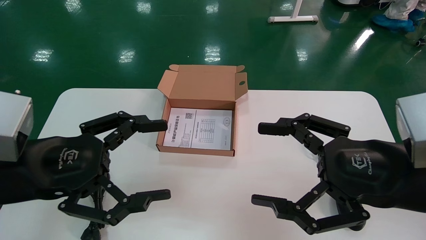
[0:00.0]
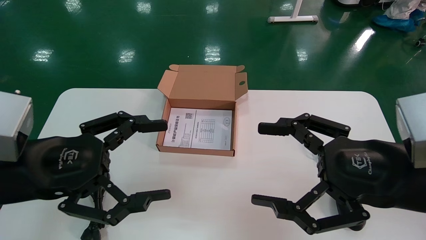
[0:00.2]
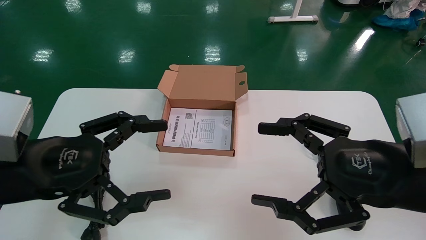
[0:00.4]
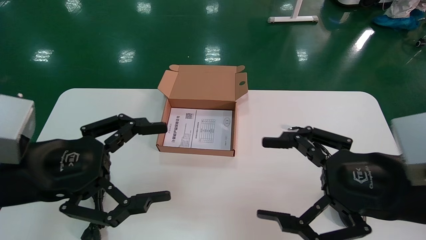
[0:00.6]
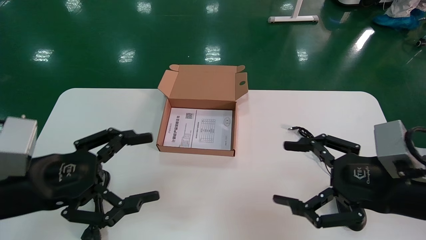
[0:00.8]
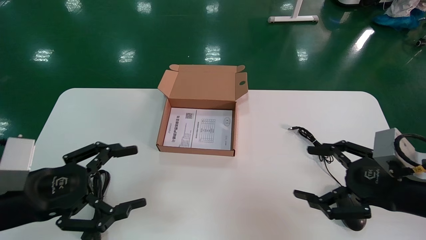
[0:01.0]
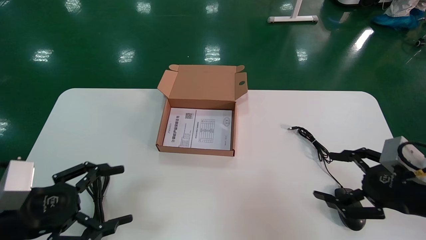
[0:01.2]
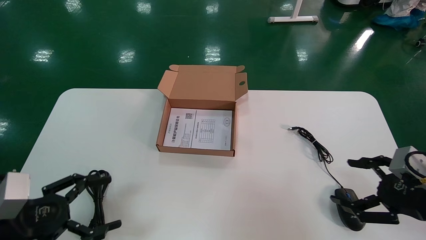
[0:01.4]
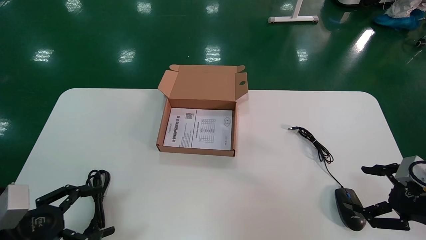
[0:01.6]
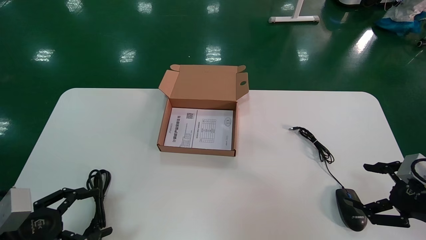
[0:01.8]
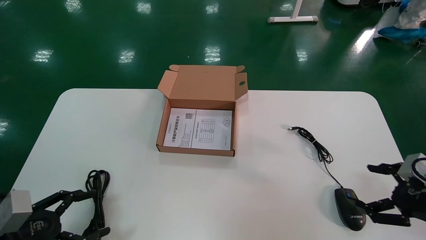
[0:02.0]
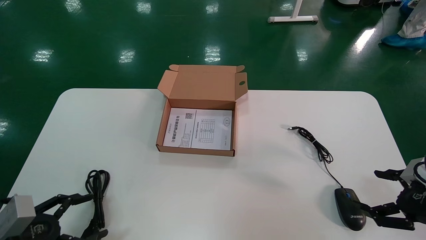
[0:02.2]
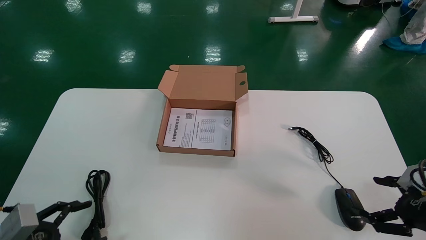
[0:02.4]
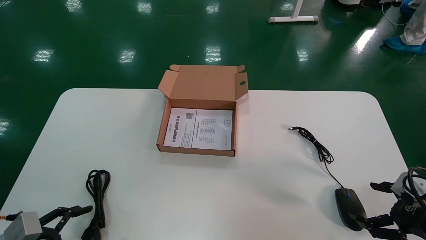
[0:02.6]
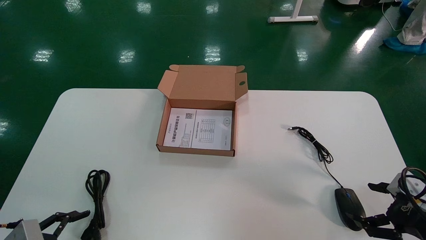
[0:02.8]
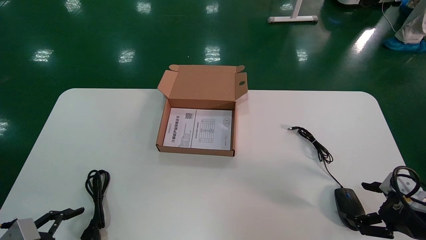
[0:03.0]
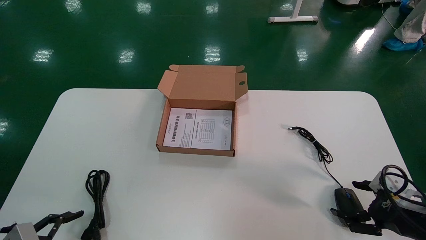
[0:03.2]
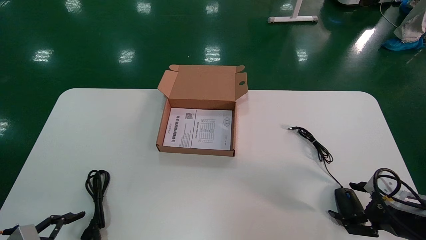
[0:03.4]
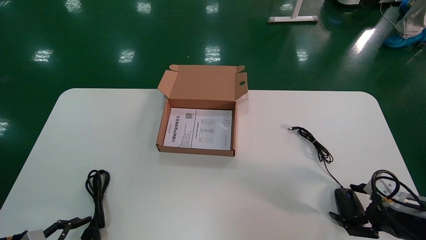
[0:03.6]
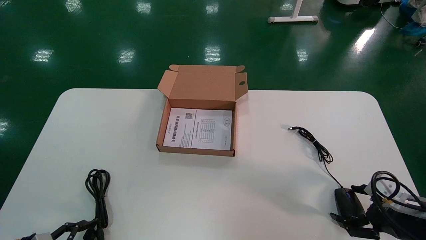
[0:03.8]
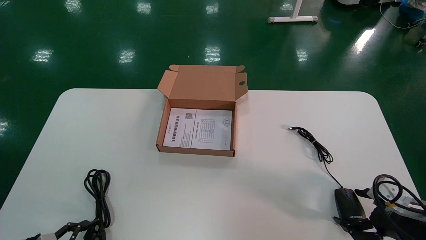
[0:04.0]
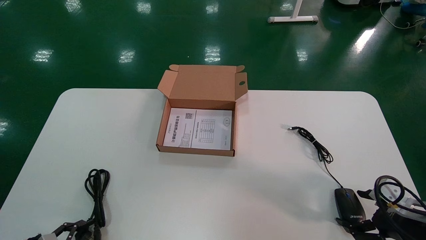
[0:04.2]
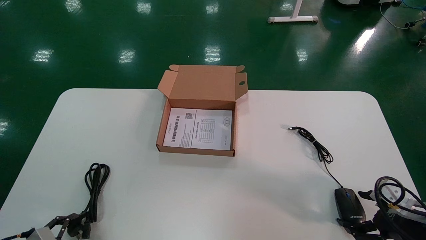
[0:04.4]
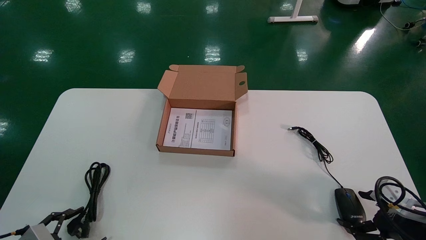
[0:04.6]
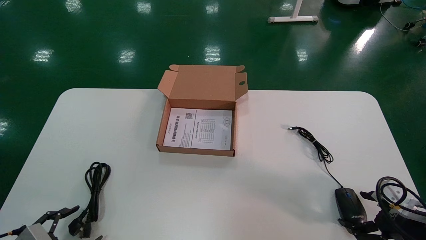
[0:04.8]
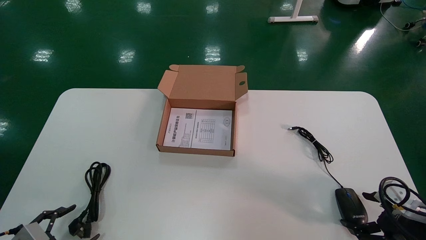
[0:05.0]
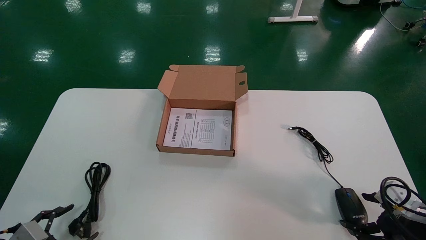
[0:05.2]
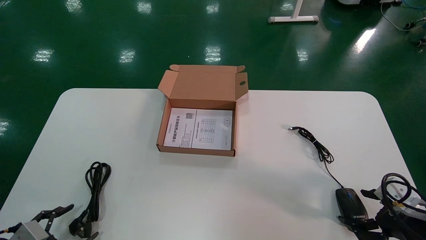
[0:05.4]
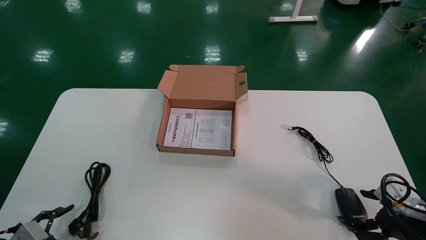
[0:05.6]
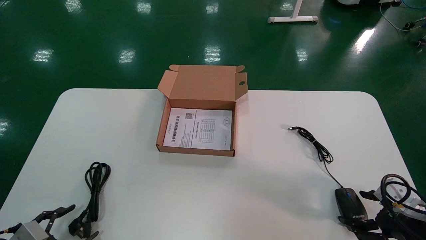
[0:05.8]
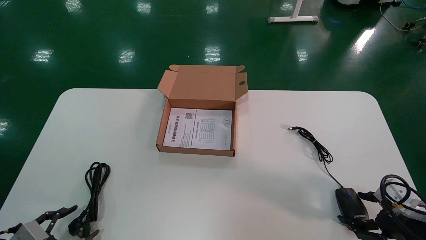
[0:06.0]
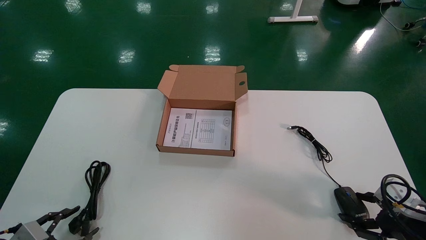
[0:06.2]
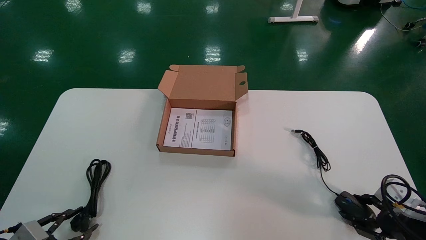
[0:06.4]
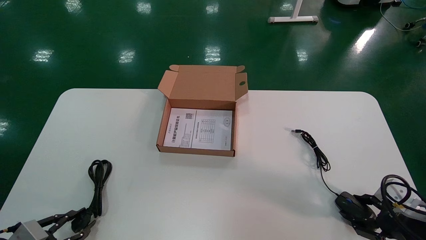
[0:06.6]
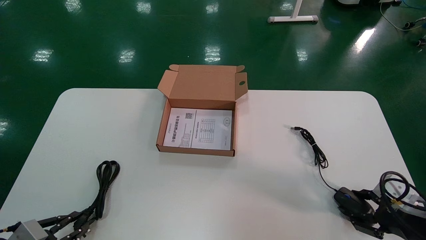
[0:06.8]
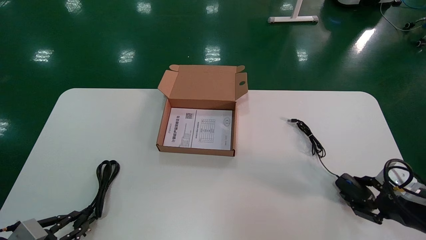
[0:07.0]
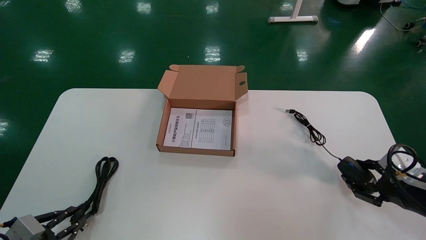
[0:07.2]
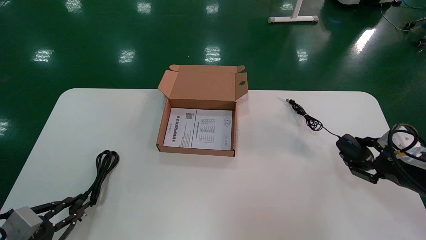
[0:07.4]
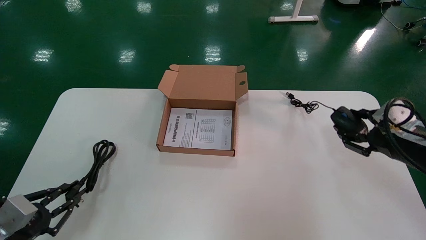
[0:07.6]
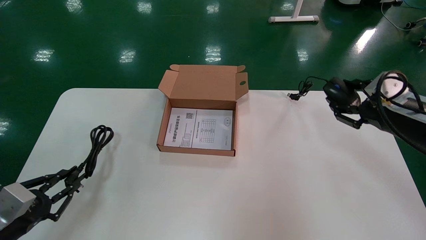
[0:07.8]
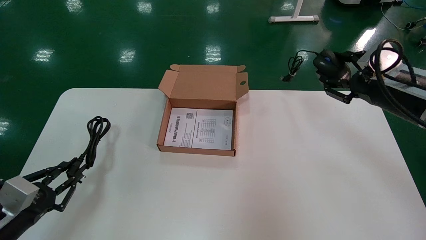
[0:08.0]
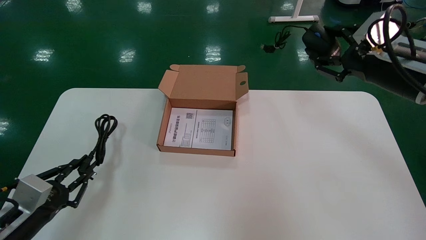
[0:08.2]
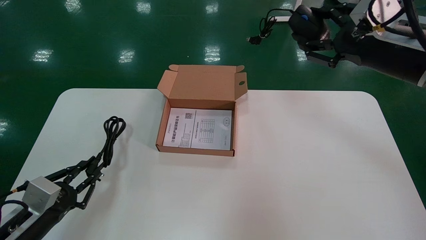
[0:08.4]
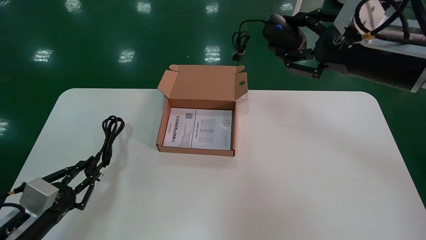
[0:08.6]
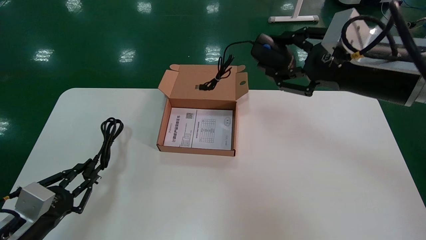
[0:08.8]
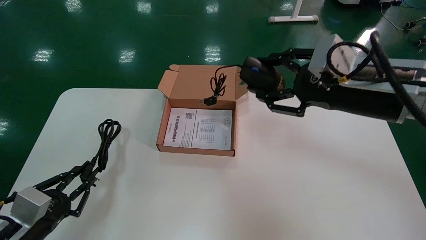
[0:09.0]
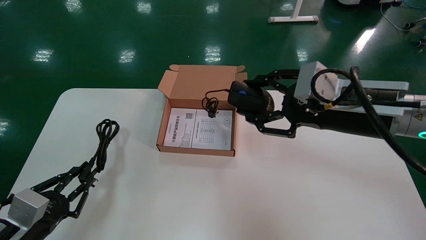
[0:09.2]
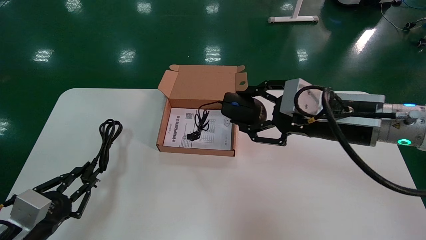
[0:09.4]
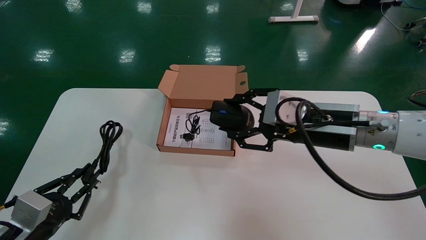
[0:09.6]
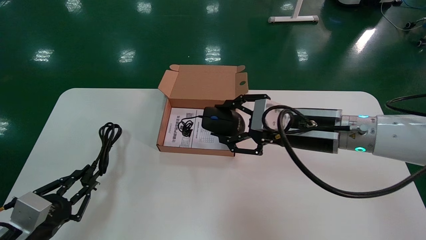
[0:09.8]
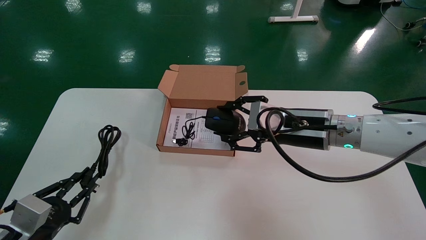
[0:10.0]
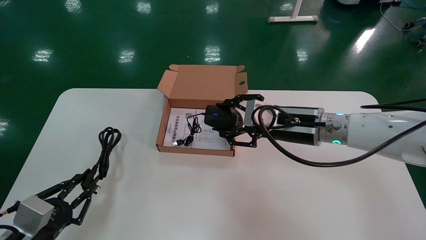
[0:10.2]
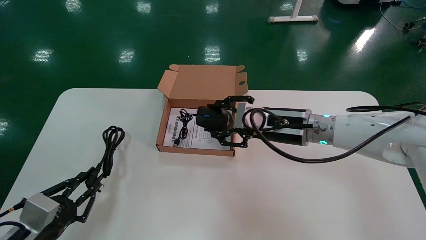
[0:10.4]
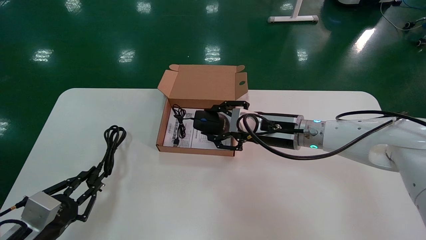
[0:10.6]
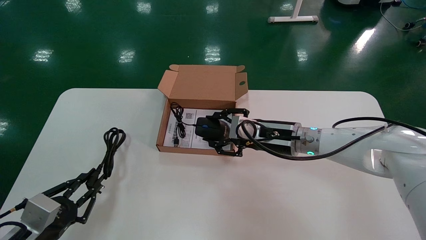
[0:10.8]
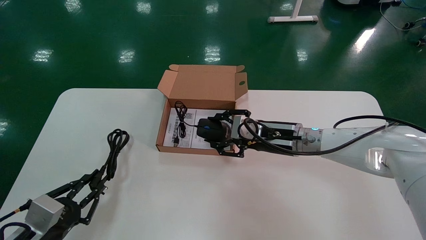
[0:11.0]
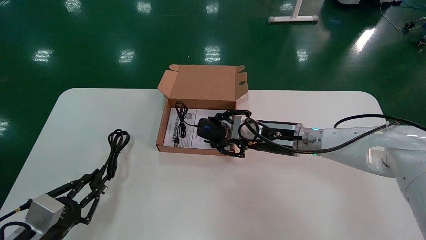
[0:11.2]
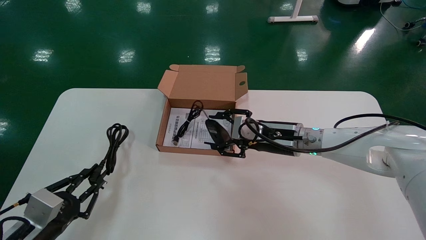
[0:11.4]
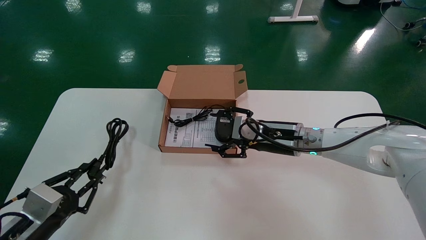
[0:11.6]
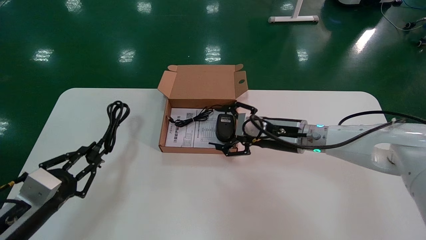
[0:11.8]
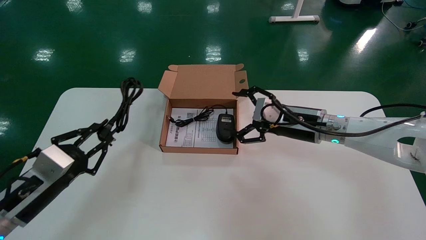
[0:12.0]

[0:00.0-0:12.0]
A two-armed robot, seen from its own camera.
Step, 0:01.0 to 0:07.2: Grab and pick up the mouse and power cord from the accessory packaging area.
0:00.0 to 0:01.6: The right gripper heads to the right and downward, covering some 15 cm. The left gripper heads downward and to the left, covering roughly 20 cm.
0:01.6 to 0:03.0: Both grippers move downward, some 5 cm.
0:03.0 to 0:06.0: The grippers make only small movements.
0:06.0 to 0:07.6: The left gripper changes place by approximately 5 cm, and closes its fingers; the right gripper is displaced upward and forward by approximately 15 cm, and closes.
0:07.6 to 0:09.0: The right gripper shifts about 20 cm to the left and upward.
0:09.0 to 0:10.4: The right gripper shifts roughly 15 cm downward, forward and to the left.
0:10.4 to 0:12.0: The left gripper shifts about 10 cm upward and forward. Meanwhile the right gripper opens.

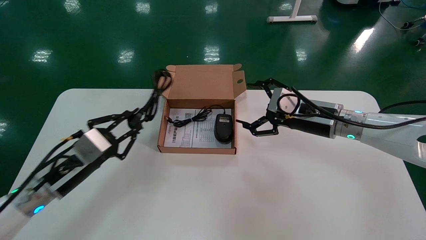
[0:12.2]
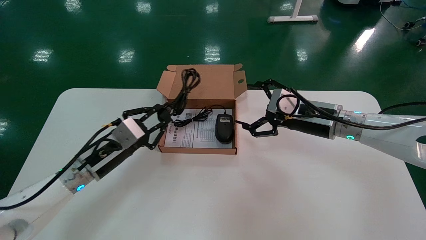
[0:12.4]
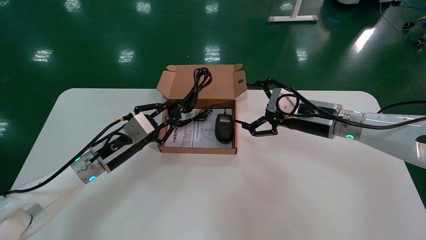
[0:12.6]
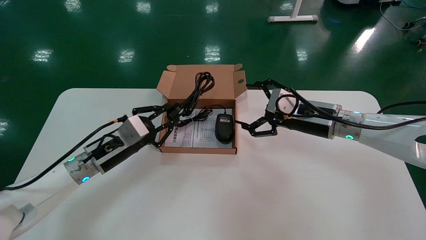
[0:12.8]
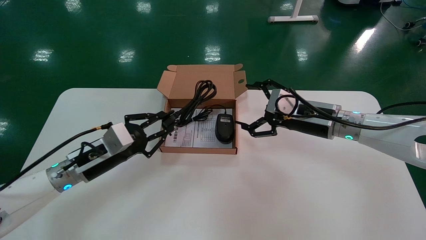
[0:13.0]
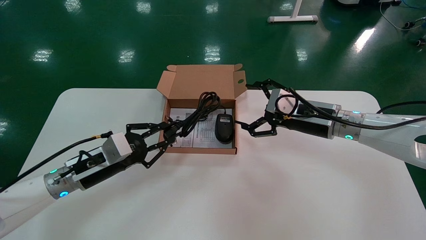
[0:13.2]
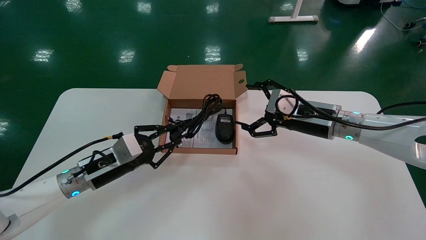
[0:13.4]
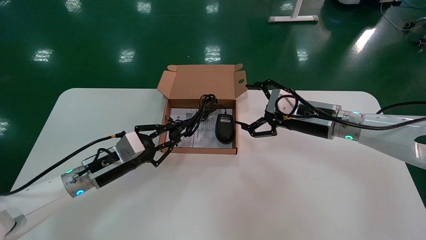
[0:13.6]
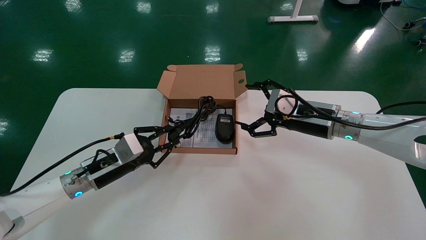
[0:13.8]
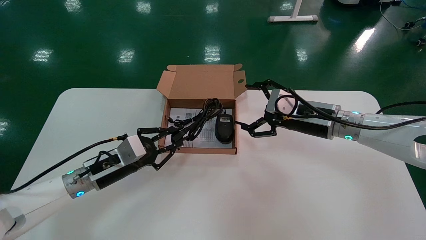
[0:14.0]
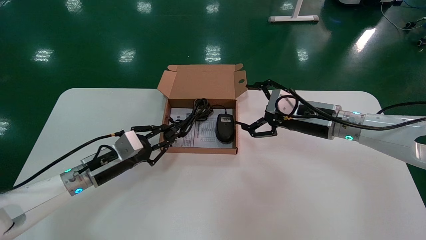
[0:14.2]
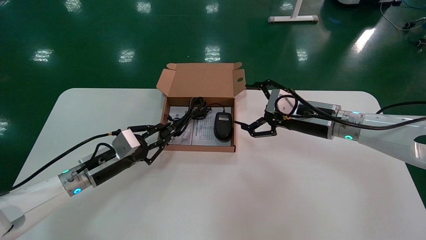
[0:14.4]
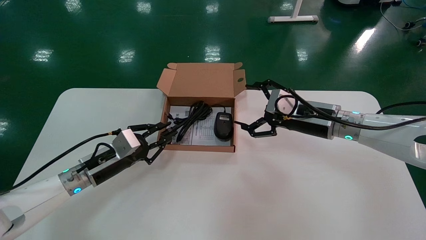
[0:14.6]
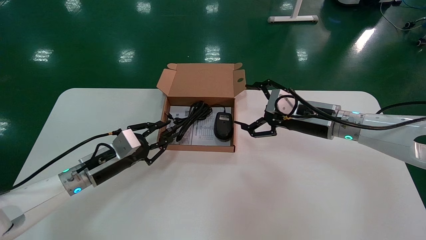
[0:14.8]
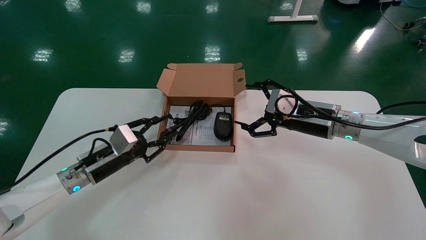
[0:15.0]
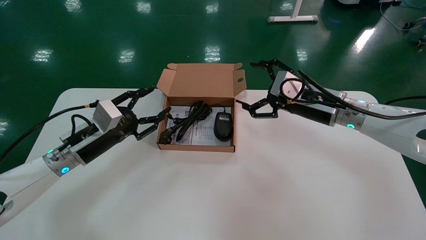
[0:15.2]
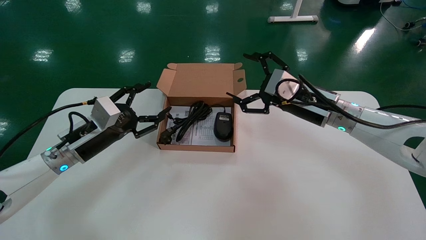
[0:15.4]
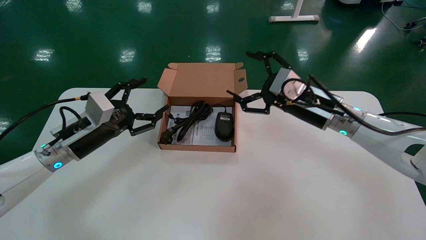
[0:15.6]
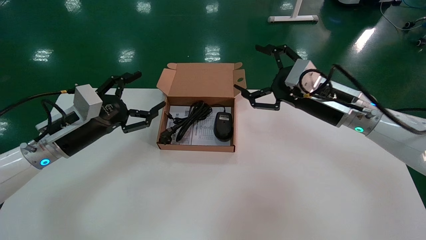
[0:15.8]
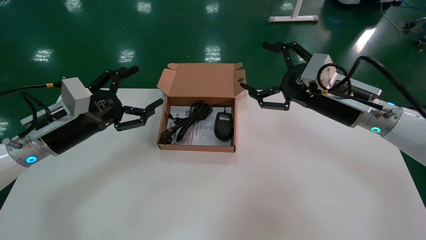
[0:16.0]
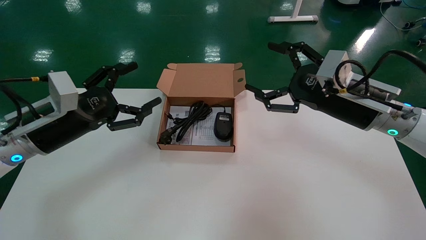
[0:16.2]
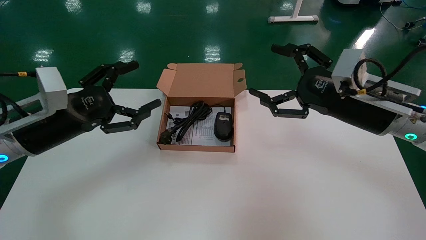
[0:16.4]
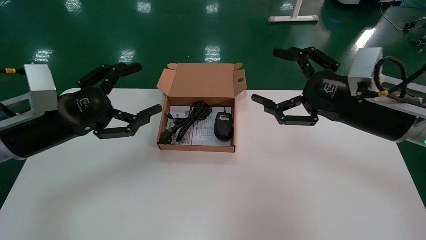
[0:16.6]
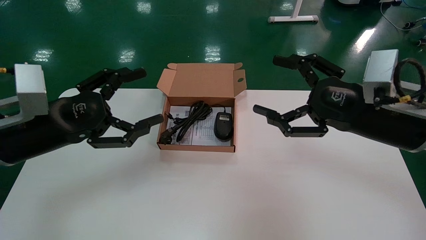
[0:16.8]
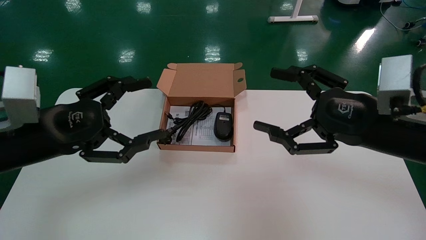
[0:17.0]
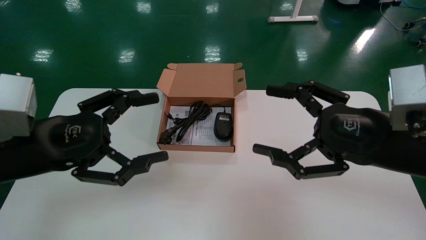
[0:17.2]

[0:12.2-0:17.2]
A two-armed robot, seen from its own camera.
Step, 0:12.2 to 0:15.2: Place the mouse and power cord into the box.
0:12.2 to 0:13.8: The left gripper moves forward, roughly 5 cm.
0:13.8 to 0:15.6: The left gripper is displaced upward by some 10 cm, and opens.
0:15.6 to 0:17.2: The left gripper shifts roughly 20 cm backward and upward, while the right gripper moves backward, roughly 15 cm.
